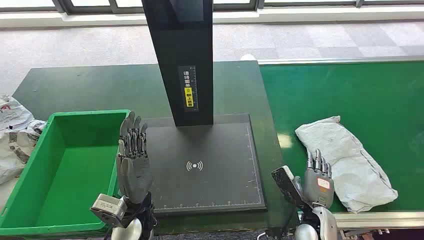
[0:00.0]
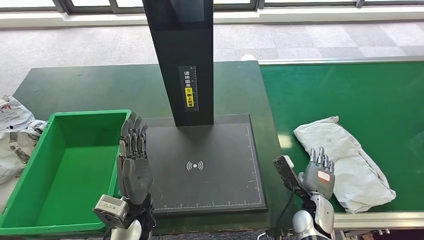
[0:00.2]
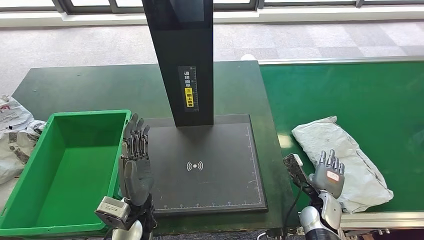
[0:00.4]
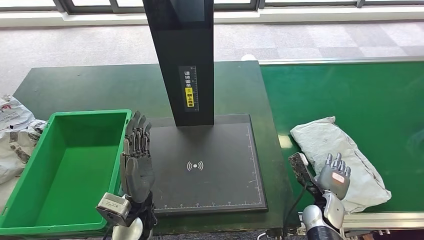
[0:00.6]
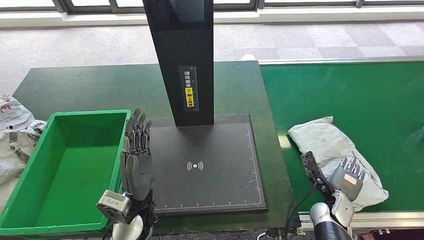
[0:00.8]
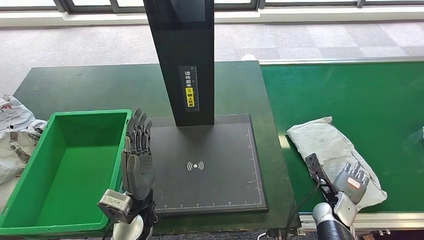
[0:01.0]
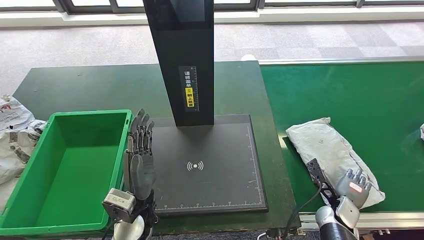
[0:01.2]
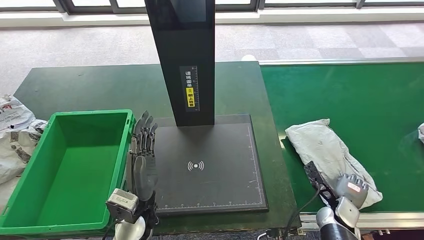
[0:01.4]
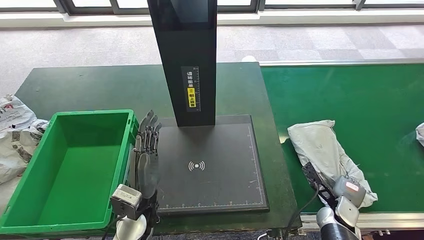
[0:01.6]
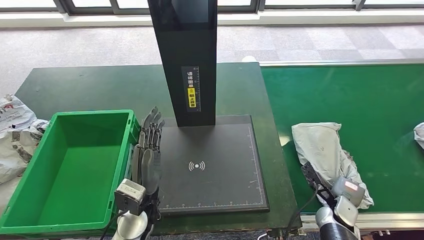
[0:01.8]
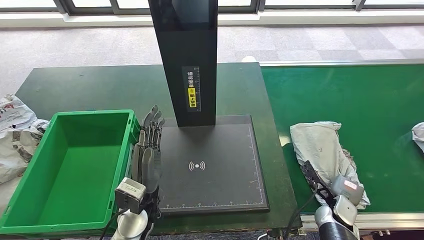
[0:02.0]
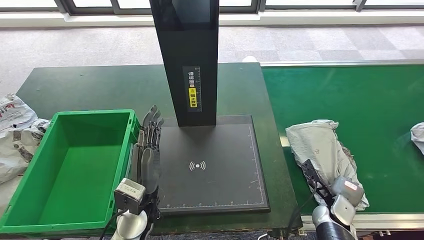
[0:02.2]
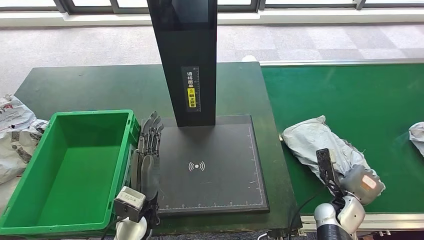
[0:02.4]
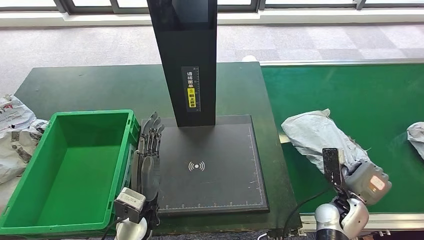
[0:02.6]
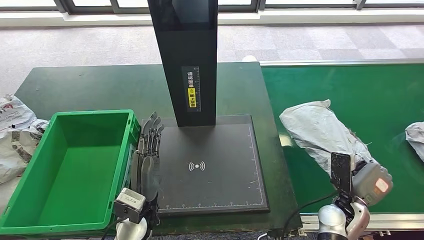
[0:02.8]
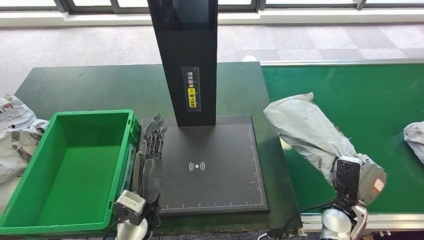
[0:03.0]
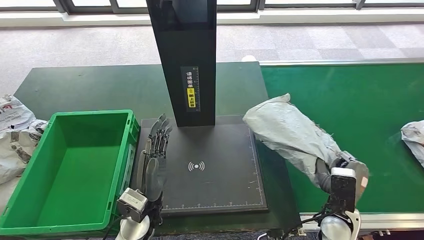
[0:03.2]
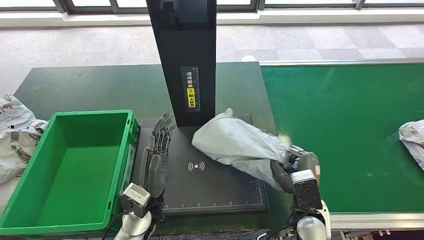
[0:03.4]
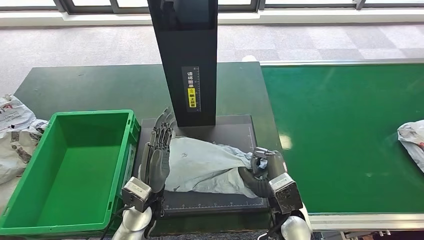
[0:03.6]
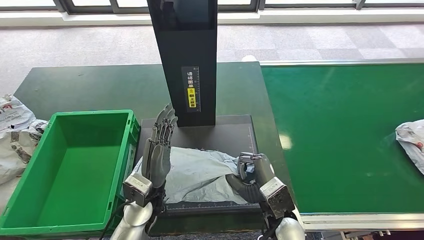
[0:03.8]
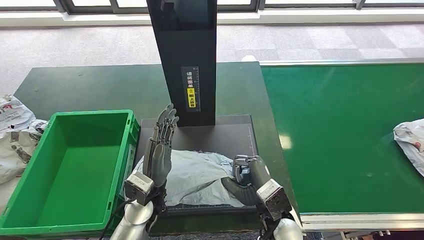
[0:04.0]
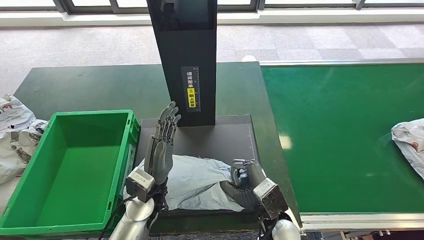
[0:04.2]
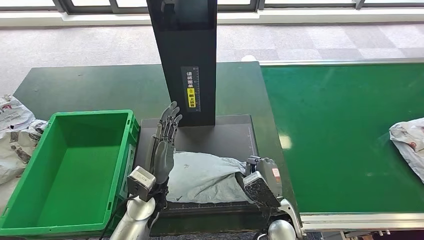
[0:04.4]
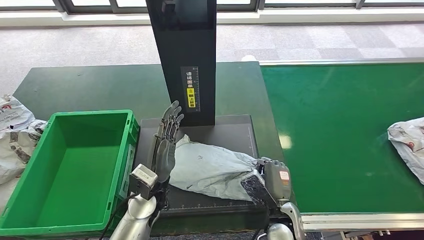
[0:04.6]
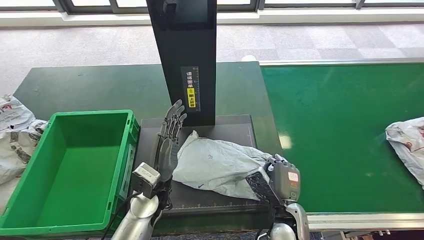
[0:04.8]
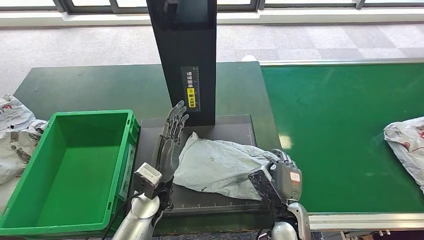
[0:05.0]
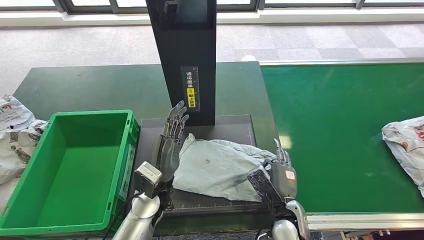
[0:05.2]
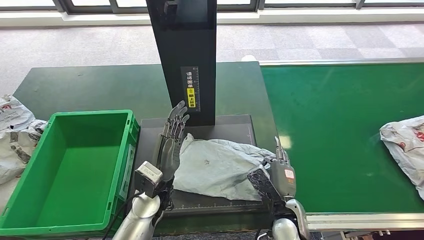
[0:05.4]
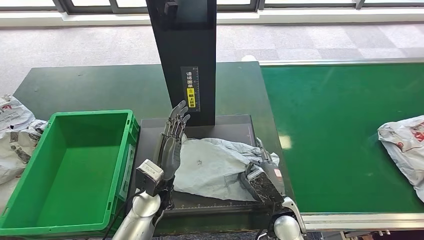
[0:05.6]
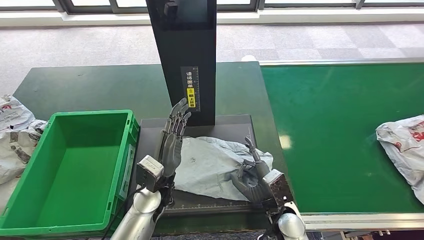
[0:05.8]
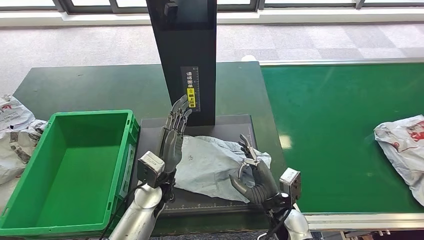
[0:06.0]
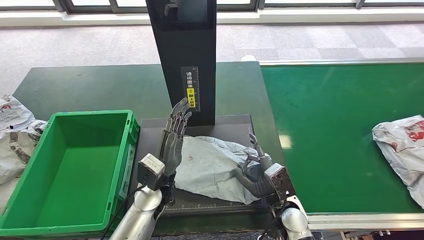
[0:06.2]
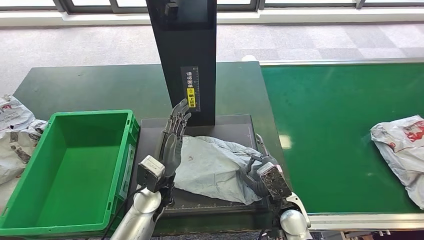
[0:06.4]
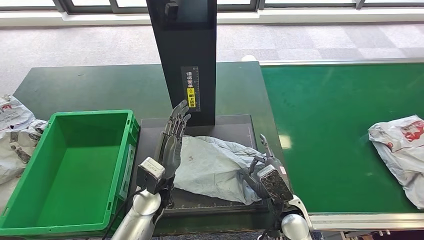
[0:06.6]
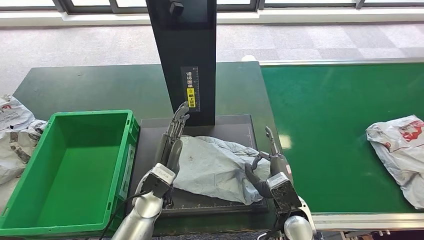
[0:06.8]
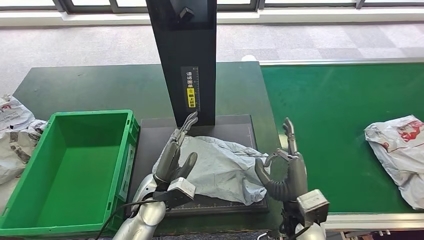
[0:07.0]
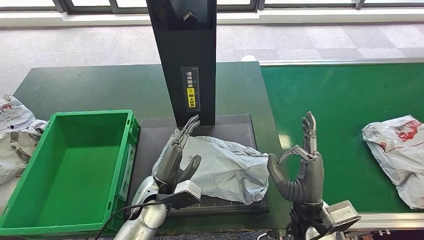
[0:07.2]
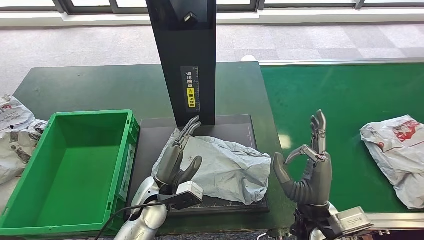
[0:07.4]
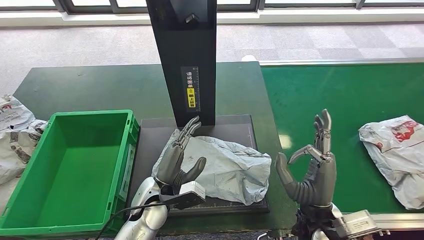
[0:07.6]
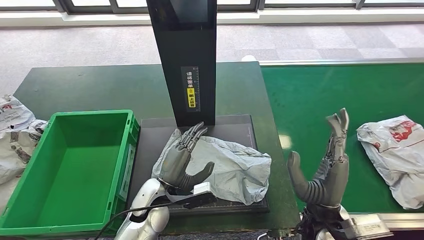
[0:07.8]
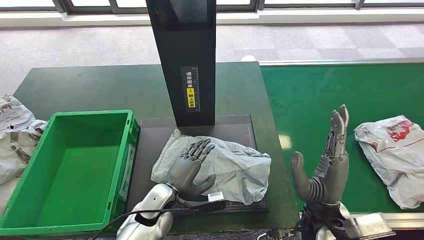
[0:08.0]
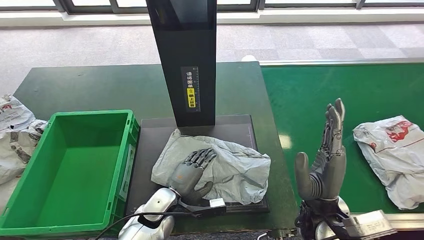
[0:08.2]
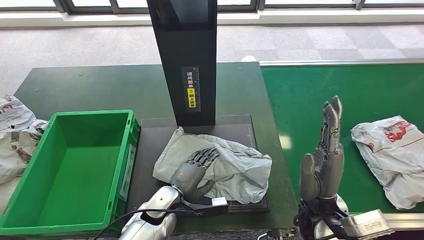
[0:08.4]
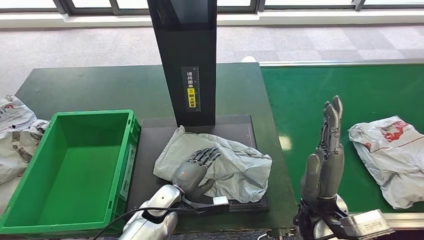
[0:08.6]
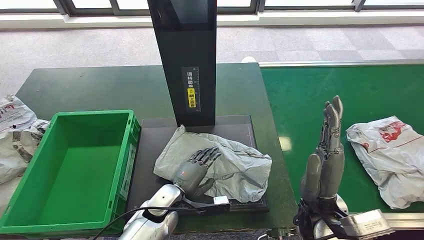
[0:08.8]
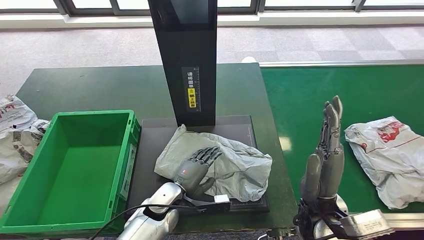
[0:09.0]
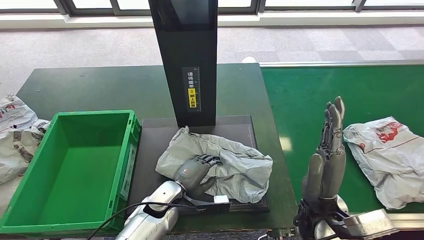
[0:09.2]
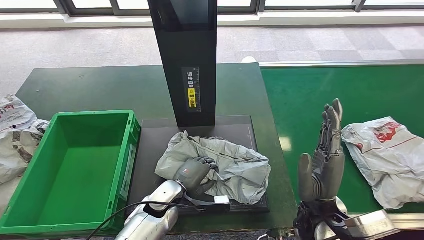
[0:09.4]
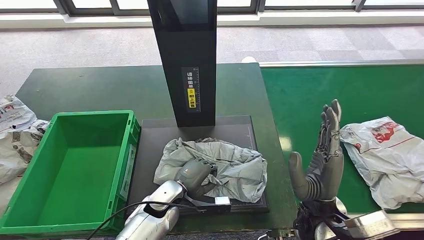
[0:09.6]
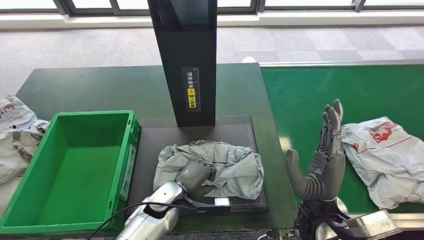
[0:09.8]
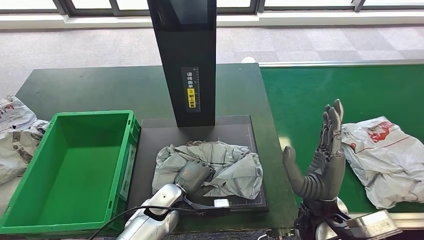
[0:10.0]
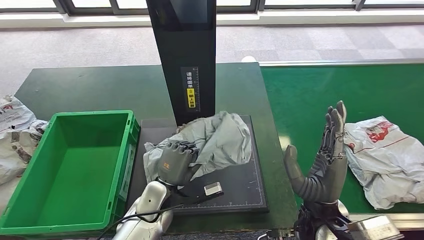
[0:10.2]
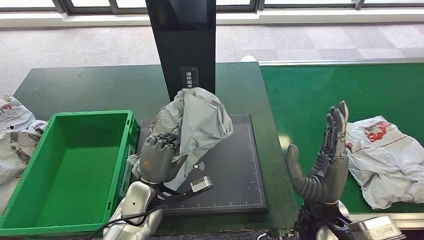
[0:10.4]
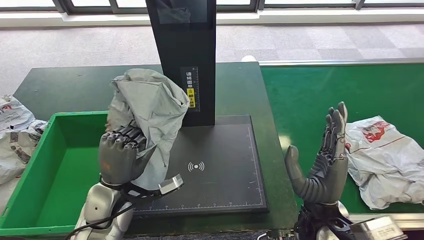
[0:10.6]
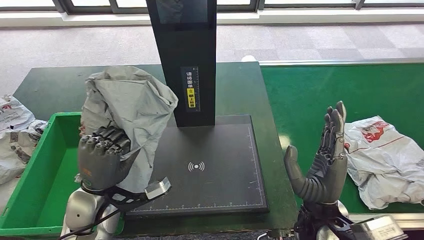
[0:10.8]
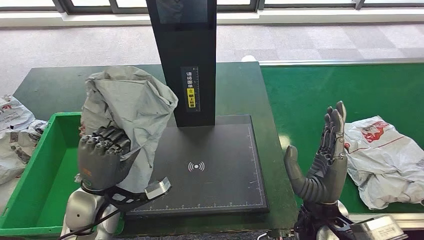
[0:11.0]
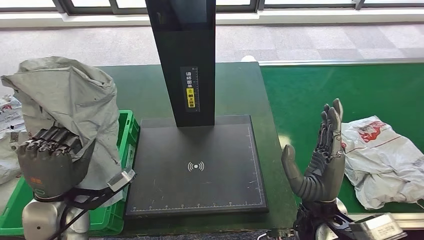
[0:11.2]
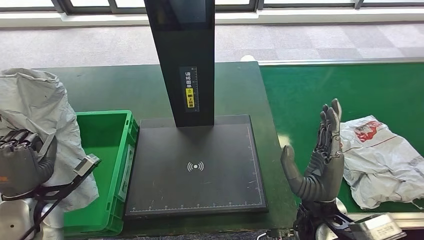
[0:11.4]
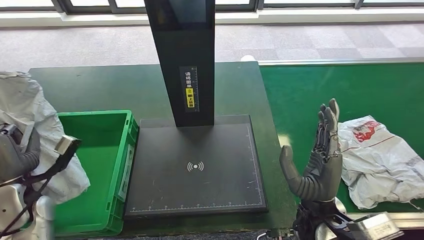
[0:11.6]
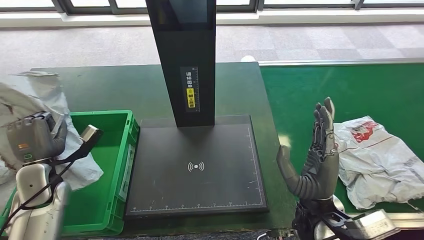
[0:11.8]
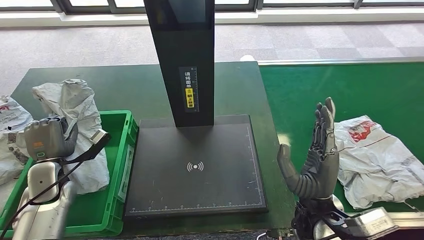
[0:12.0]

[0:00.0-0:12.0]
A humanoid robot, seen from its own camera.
Step, 0:00.0 to 0:03.0: Take the parcel off the conveyor belt.
Step, 0:03.2 to 0:05.2: Place the parcel onto the inbound machine.
0:01.6 to 0:03.0: The right hand shifts roughly 10 cm upward.
0:06.0 to 0:07.6: The right hand heads upward, covering about 10 cm.

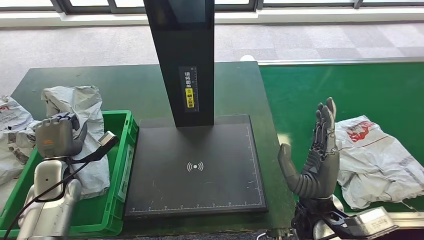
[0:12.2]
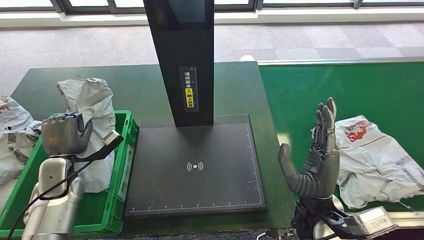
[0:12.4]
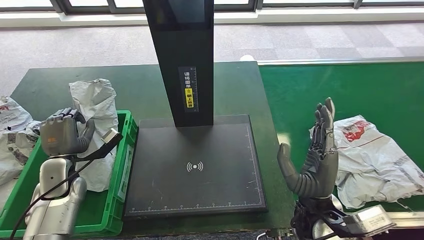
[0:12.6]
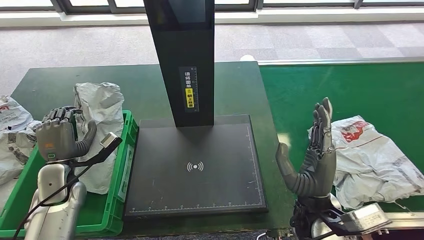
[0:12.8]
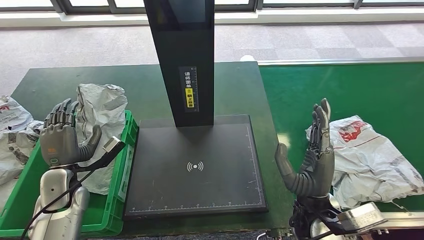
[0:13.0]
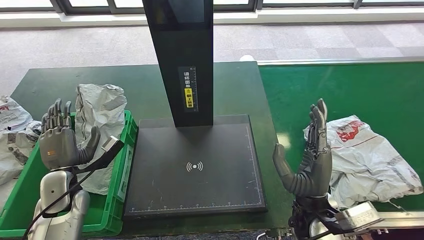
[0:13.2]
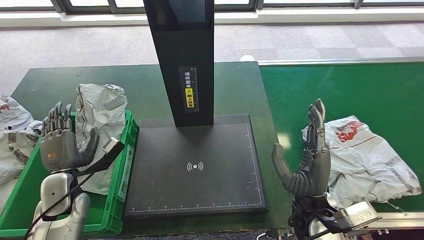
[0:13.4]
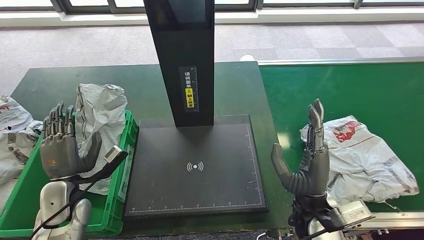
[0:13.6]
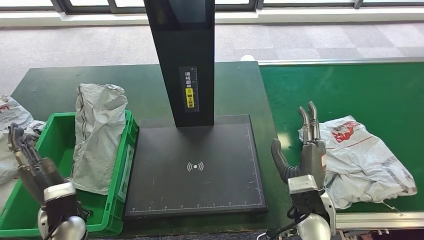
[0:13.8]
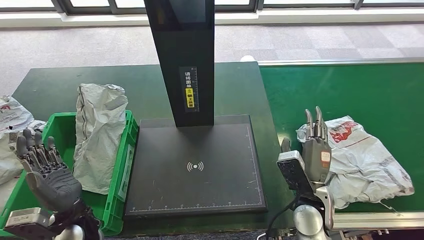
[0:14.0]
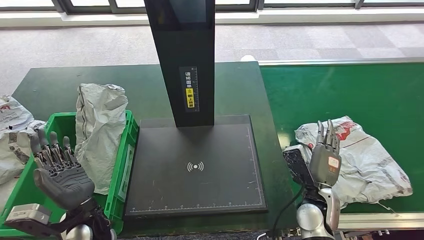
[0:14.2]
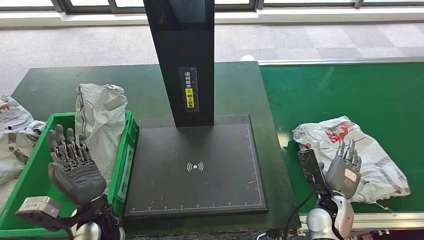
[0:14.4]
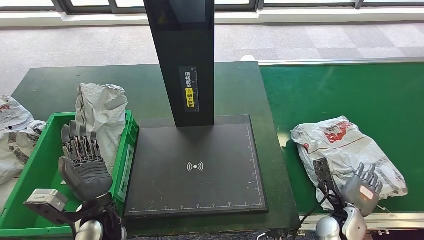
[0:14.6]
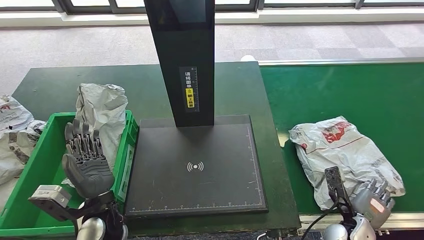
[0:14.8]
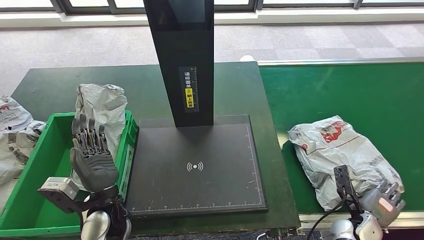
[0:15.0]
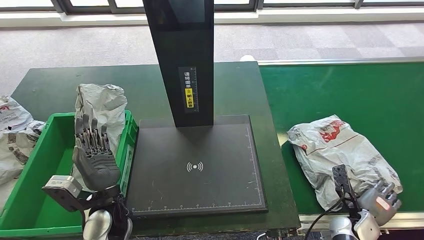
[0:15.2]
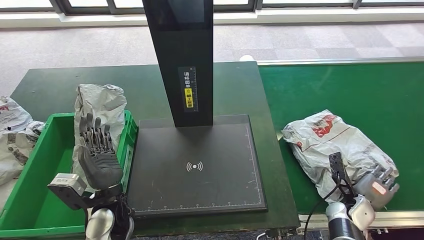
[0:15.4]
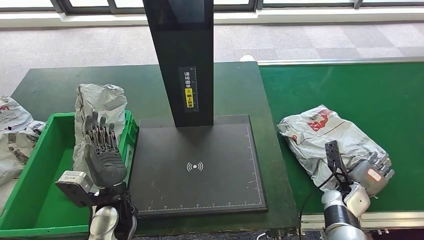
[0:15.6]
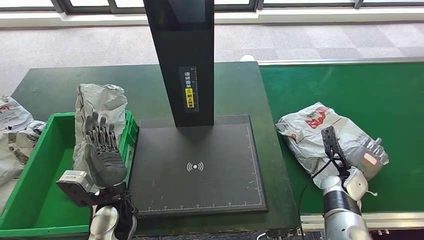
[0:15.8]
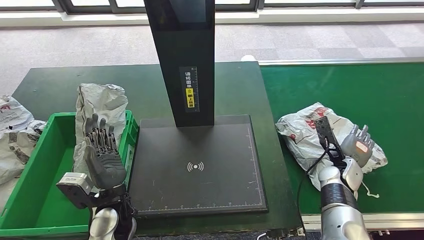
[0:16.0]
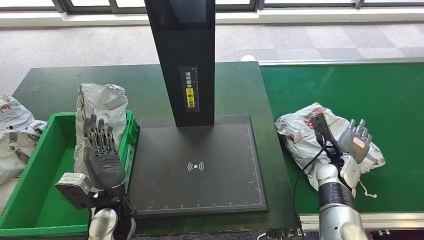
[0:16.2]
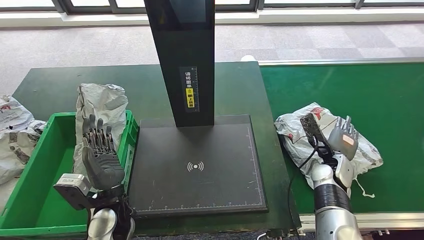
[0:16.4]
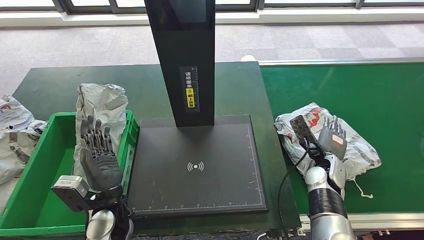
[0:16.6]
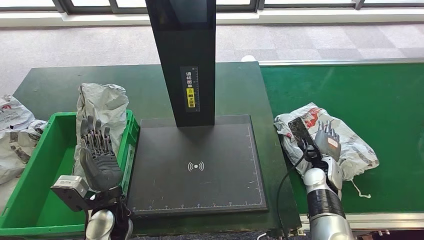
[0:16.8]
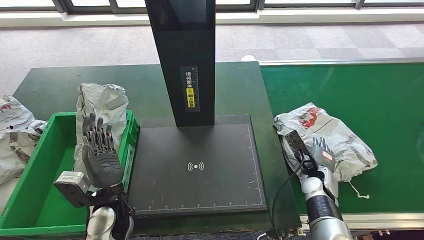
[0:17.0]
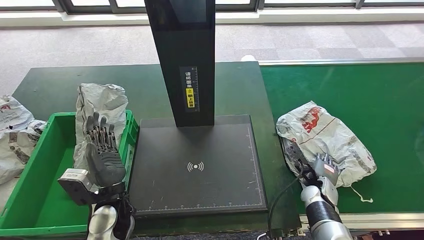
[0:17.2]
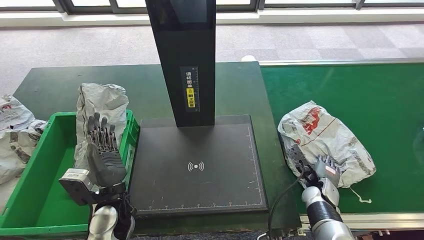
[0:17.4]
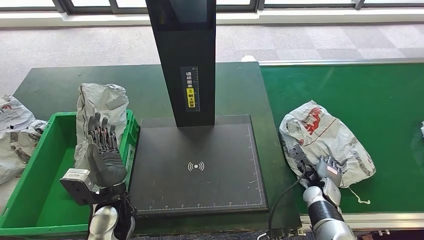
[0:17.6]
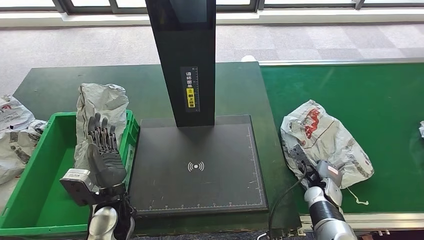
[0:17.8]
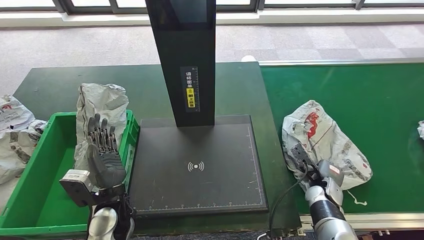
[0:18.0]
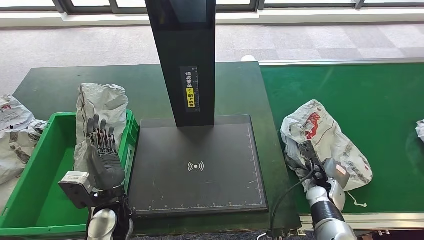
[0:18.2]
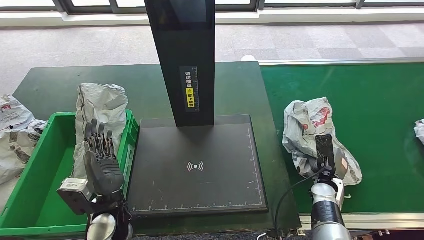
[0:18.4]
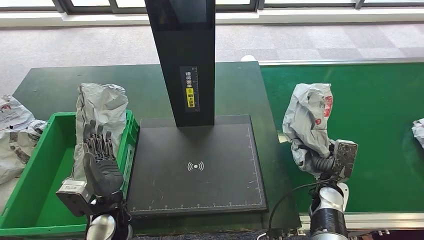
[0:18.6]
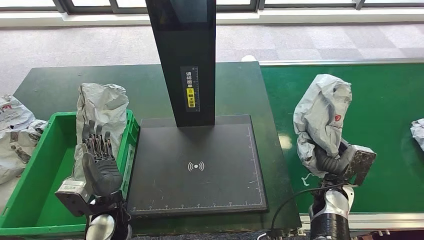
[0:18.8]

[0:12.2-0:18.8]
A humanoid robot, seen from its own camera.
Step, 0:12.2 to 0:12.4: Pick up the parcel from the inbound machine.
Step, 0:12.8 to 0:15.0: Put the parcel inside the courier box.
Step, 0:15.2 to 0:18.4: Pick up the parcel from the conveyor belt.
0:12.2 to 0:13.8: The left hand shifts some 10 cm backward and to the right.
0:13.8 to 0:15.4: The right hand heads to the right and downward, covering some 20 cm. Meanwhile the left hand moves to the right, some 10 cm.
0:15.4 to 0:17.2: The right hand moves to the left and forward, roughly 10 cm.
0:17.2 to 0:18.8: The right hand changes place by roughly 5 cm.
